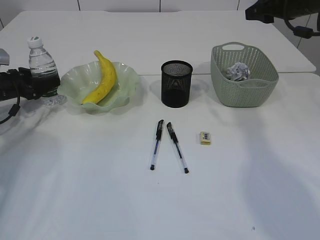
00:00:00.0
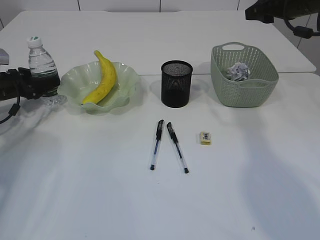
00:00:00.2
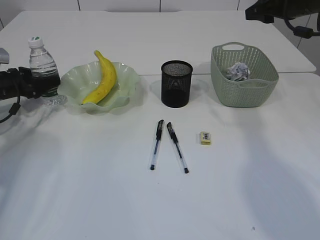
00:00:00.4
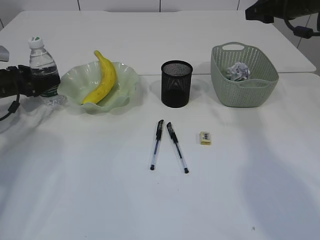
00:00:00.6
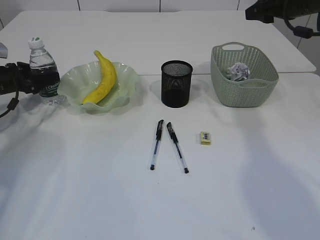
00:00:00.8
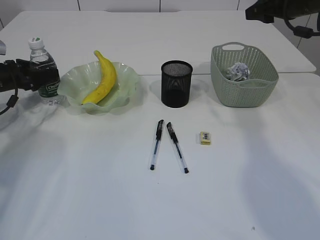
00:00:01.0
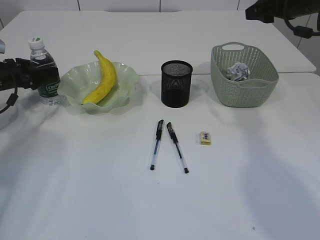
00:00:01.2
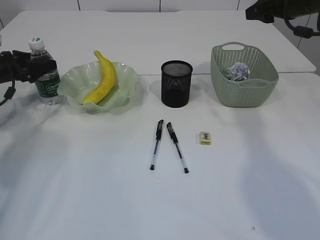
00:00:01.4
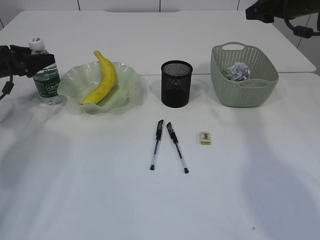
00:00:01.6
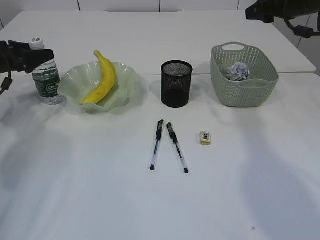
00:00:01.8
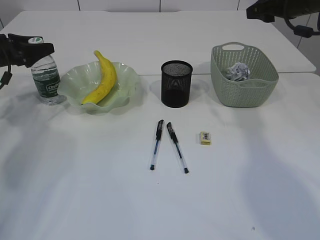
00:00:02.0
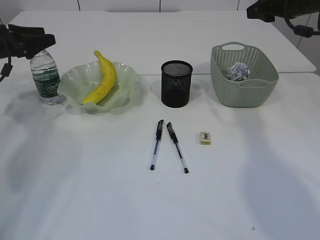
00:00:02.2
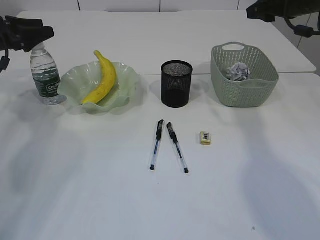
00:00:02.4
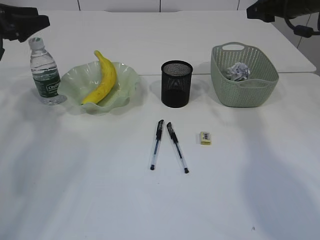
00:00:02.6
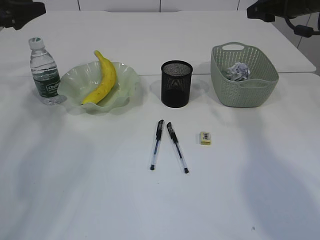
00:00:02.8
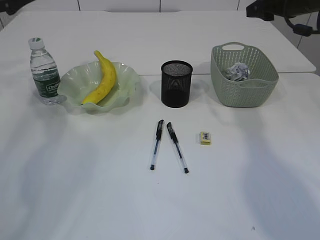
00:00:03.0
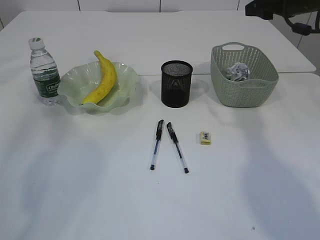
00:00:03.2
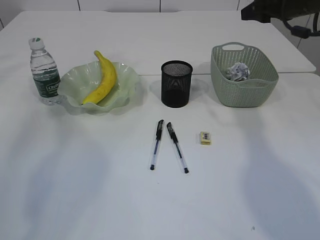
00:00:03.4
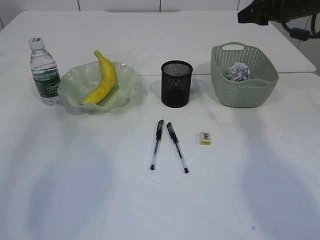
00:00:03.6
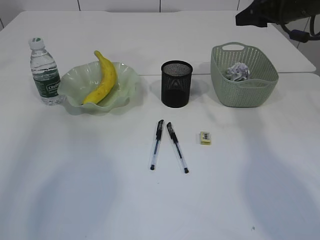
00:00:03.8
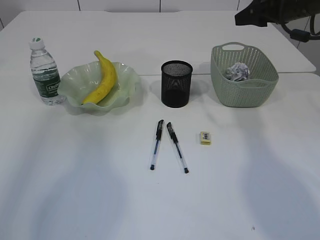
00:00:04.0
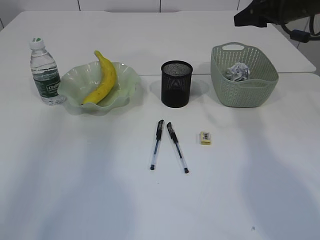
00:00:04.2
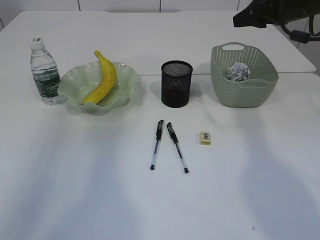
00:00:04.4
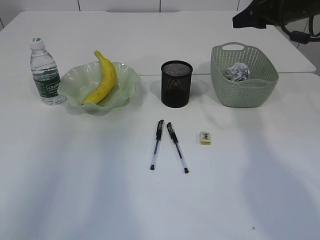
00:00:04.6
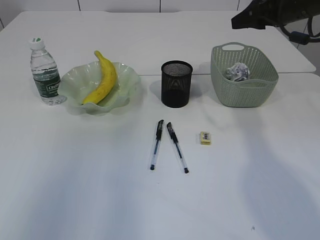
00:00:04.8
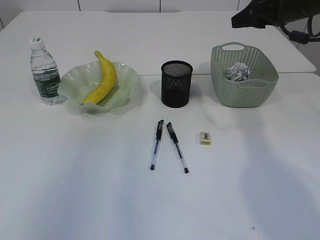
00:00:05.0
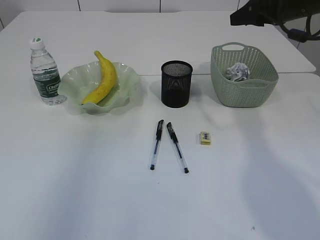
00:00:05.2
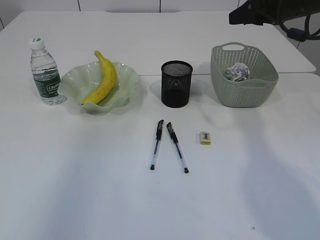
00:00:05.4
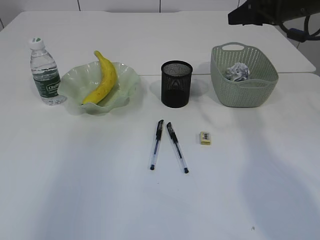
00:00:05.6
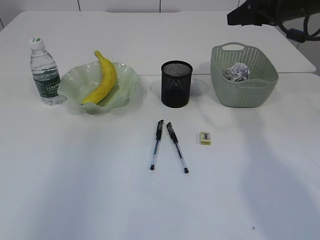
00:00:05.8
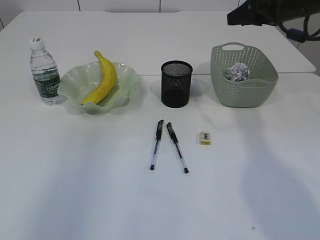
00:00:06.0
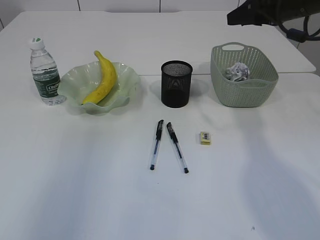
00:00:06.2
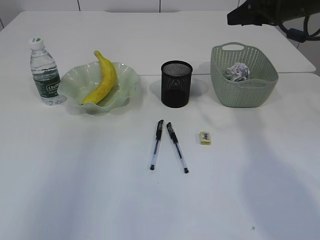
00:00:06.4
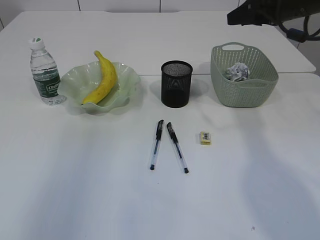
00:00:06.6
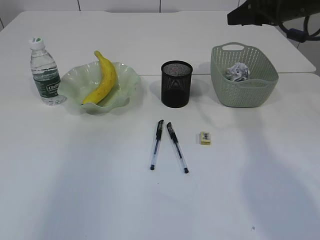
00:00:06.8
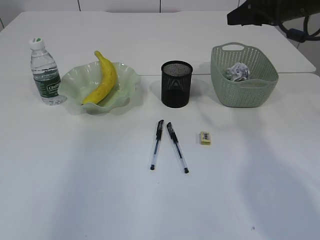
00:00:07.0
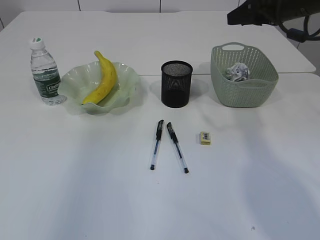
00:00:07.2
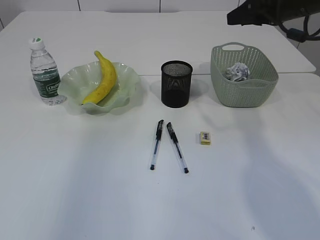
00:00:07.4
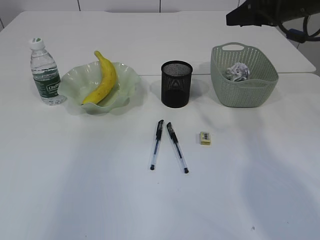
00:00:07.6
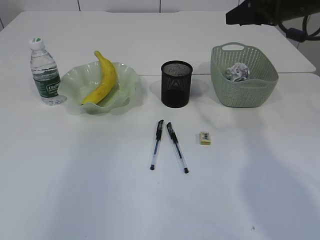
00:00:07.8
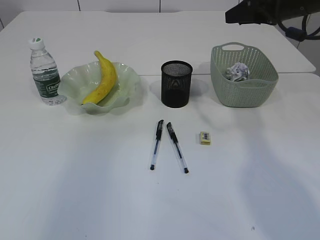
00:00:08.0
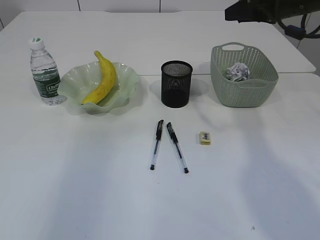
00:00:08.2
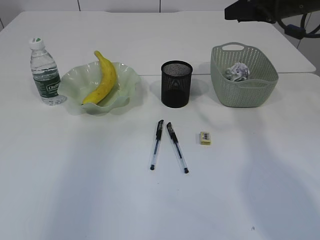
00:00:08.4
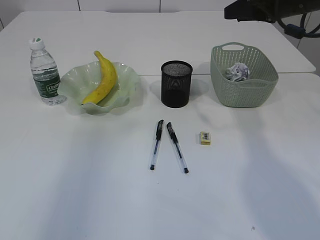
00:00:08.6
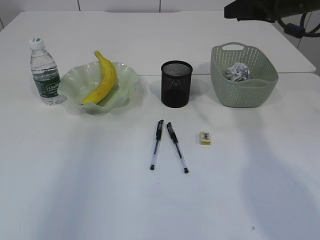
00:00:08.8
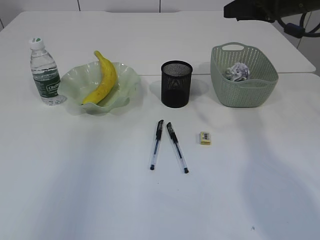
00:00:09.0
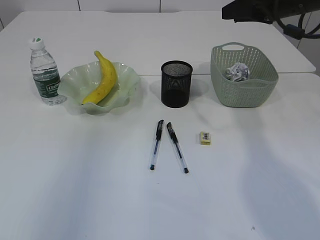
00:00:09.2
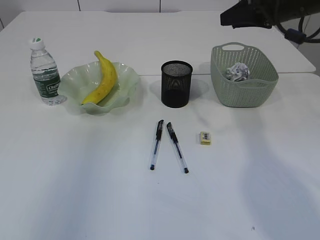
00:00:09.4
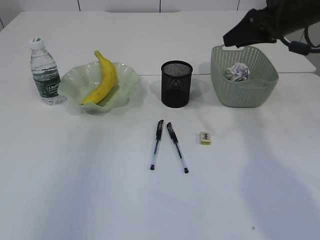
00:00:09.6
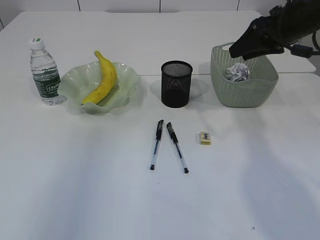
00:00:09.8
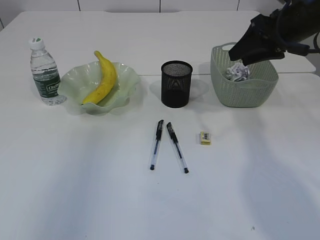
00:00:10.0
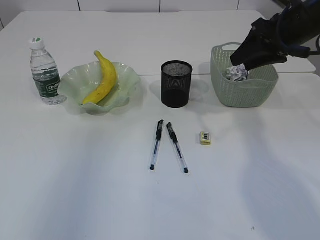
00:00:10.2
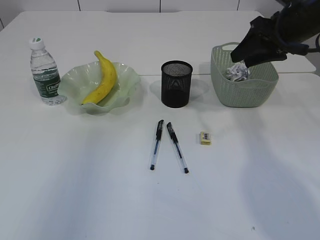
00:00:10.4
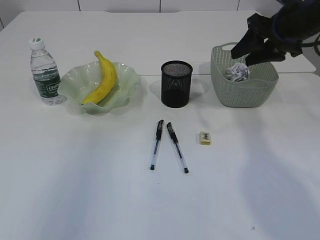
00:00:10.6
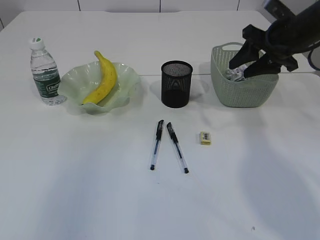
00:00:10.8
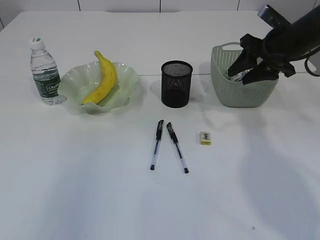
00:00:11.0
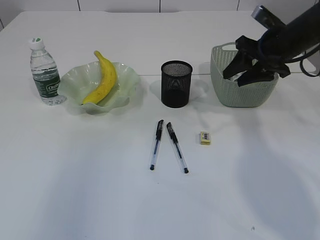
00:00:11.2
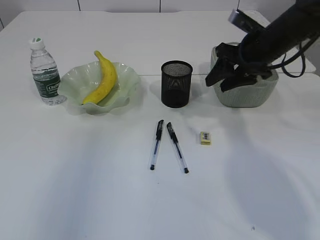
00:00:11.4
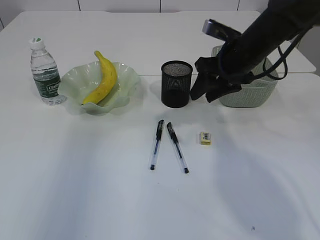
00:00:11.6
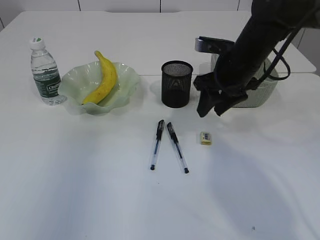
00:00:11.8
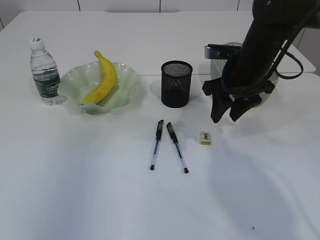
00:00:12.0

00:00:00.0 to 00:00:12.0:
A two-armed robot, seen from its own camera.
Step, 00:00:00.0 to 00:00:02.4: Place the bottle.
00:00:00.0 to 00:00:01.6: The left gripper shifts roughly 5 cm upward.
00:00:01.6 to 00:00:03.0: The left gripper heads upward, covering approximately 15 cm.
00:00:03.0 to 00:00:04.4: The left gripper travels upward and backward by approximately 25 cm.
00:00:04.4 to 00:00:06.0: The left gripper heads backward and upward, covering approximately 20 cm.
00:00:10.4 to 00:00:12.0: The right gripper shifts about 10 cm to the left and downward.

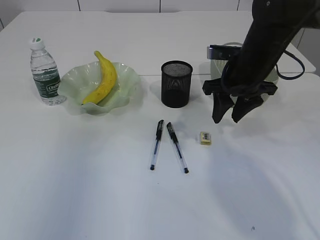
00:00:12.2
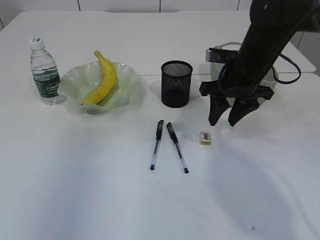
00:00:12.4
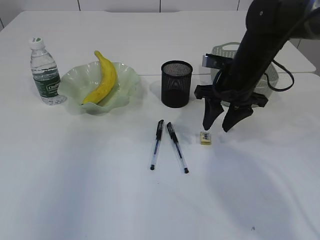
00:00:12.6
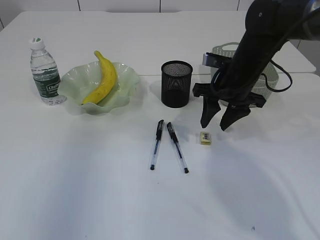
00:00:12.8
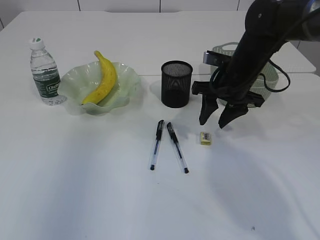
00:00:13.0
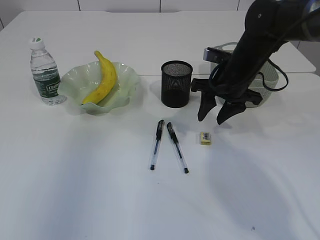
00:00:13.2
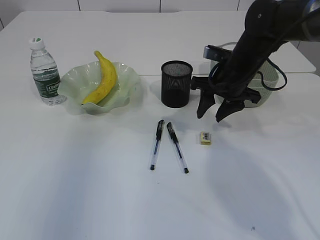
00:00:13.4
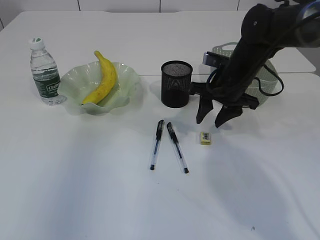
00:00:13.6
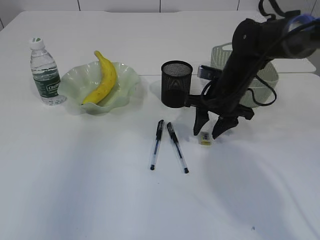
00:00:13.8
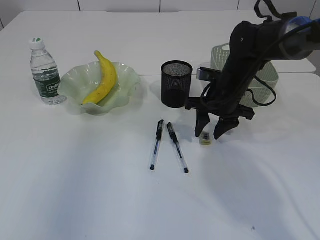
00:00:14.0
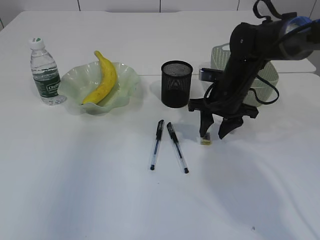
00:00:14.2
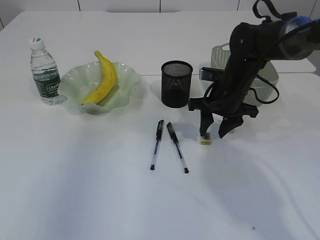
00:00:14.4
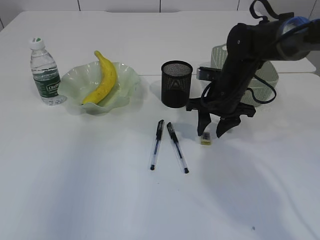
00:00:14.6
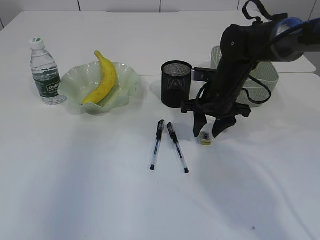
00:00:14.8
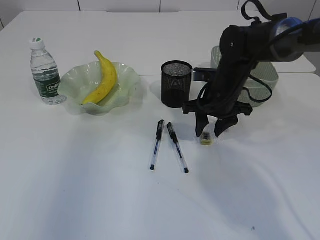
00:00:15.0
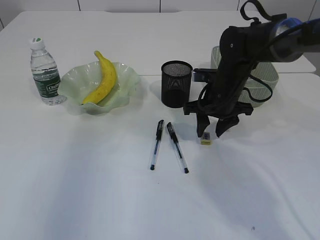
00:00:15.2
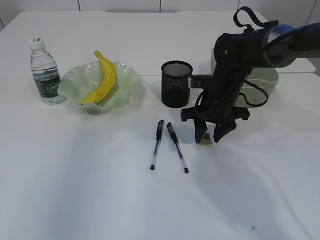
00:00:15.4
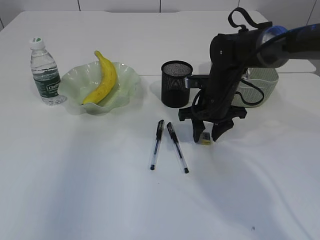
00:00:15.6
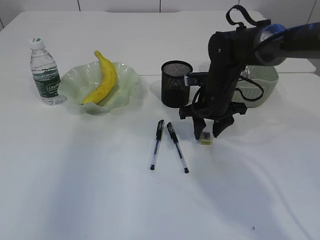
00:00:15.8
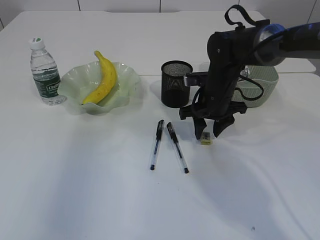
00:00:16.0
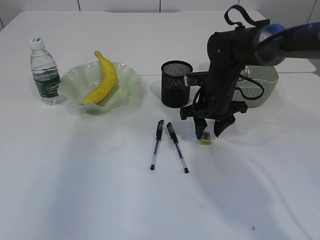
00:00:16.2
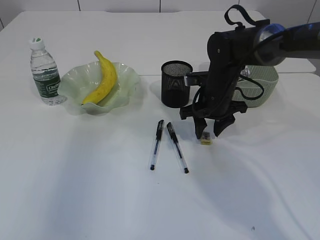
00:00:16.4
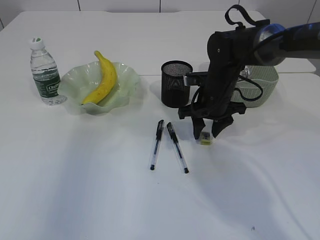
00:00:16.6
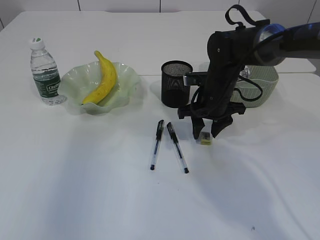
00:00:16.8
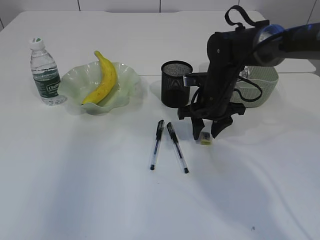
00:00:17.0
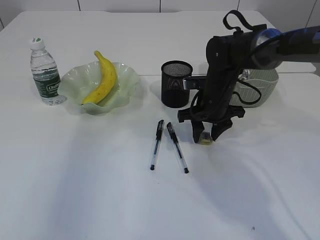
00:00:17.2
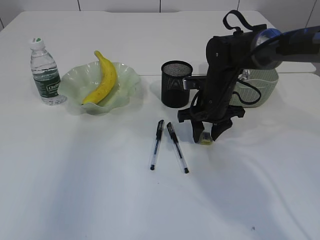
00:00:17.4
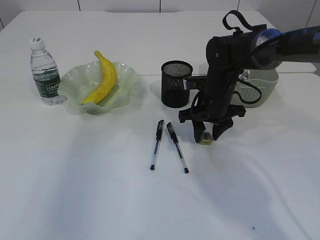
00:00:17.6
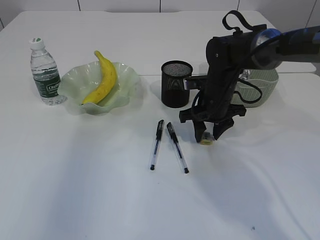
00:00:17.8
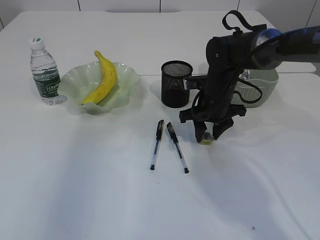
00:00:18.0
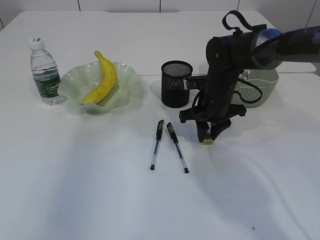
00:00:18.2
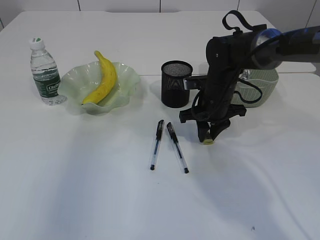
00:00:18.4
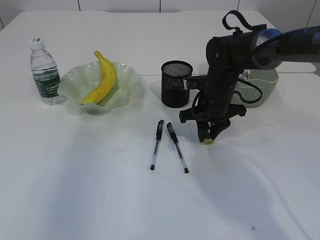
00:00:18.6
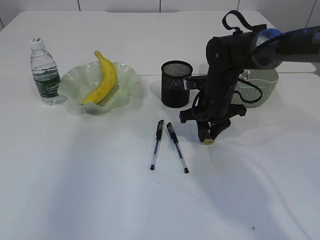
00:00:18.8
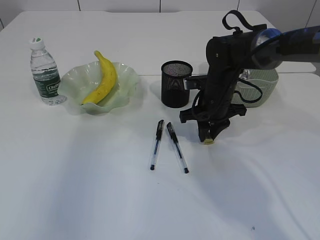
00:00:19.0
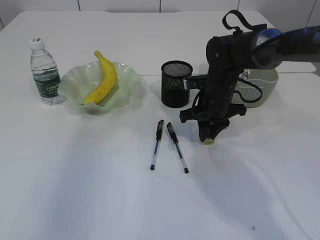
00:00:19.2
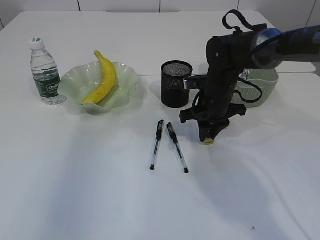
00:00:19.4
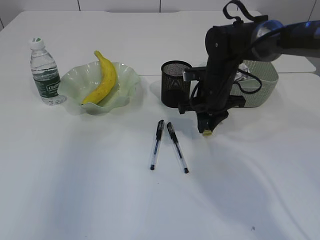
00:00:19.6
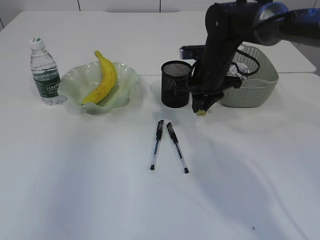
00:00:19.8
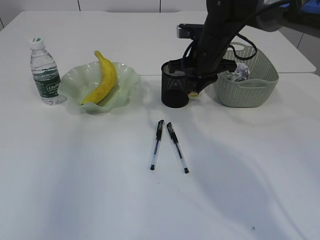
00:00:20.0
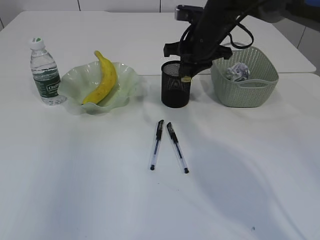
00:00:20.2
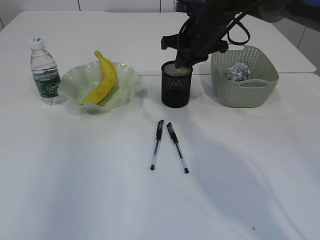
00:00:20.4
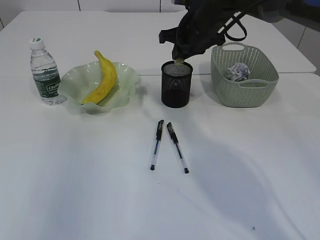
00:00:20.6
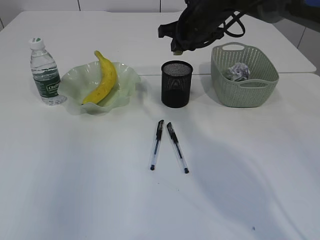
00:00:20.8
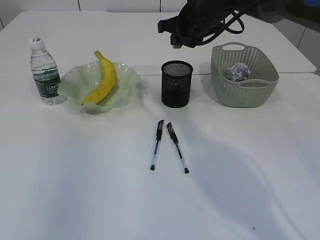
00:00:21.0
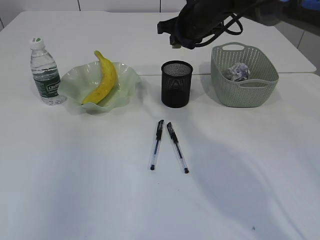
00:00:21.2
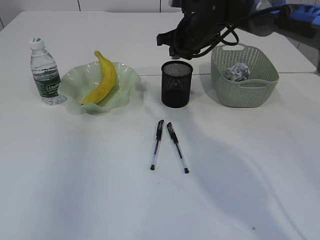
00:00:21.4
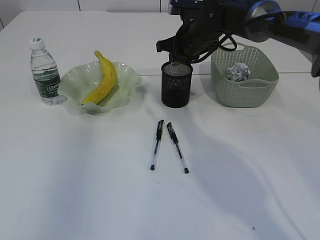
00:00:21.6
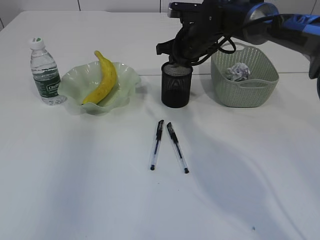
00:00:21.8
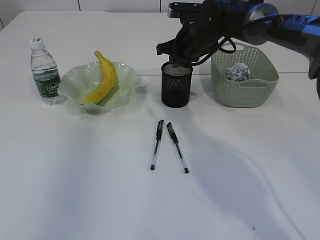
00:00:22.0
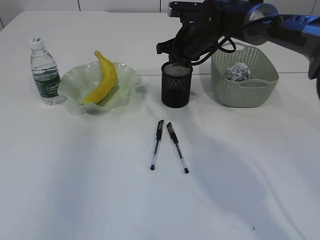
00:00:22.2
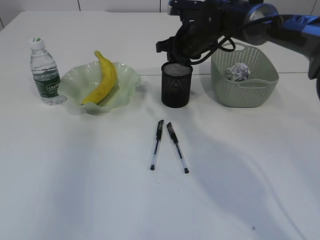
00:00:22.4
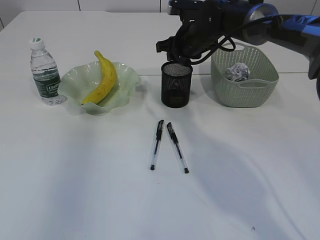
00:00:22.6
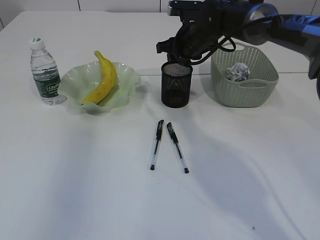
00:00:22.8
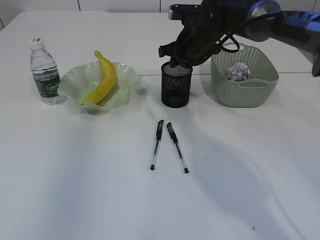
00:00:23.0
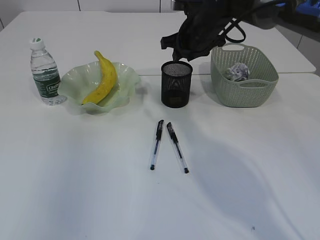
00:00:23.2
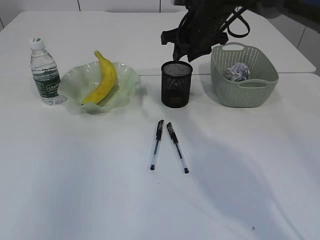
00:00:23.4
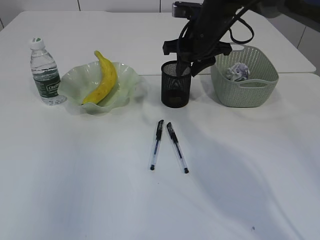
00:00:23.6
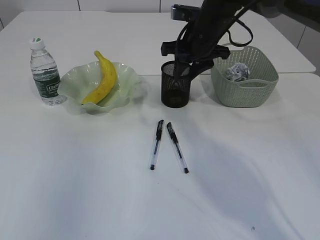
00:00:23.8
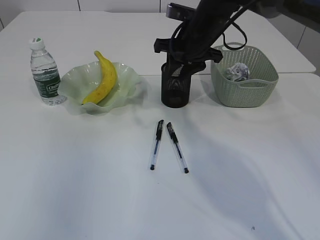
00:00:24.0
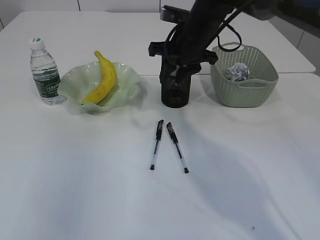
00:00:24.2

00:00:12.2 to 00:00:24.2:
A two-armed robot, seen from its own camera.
Step, 00:00:12.2 to 00:00:19.8: Pick up the eraser.
Step, 00:00:20.0 to 00:00:22.4: Place the eraser into the pen holder.
00:00:12.2 to 00:00:13.8: The right gripper travels downward by some 5 cm.
00:00:13.8 to 00:00:16.6: There are only small adjustments of the grippers.
00:00:16.6 to 00:00:18.2: Both grippers stay about where they are.
00:00:18.2 to 00:00:19.8: The right gripper moves upward, some 5 cm.
00:00:19.8 to 00:00:21.2: The right gripper travels upward and forward by some 10 cm.
00:00:21.2 to 00:00:22.6: The grippers make only small movements.
00:00:22.6 to 00:00:24.2: The right gripper moves backward, some 5 cm.
